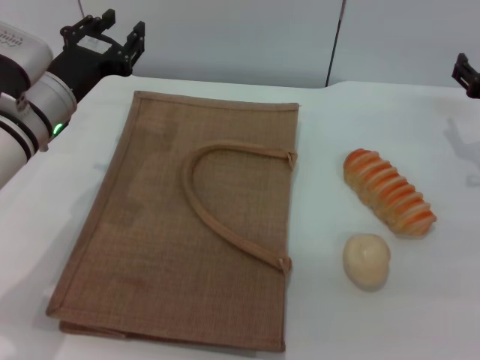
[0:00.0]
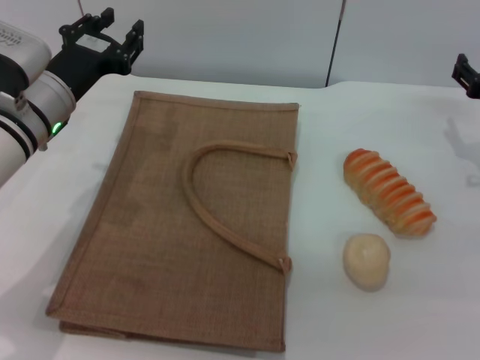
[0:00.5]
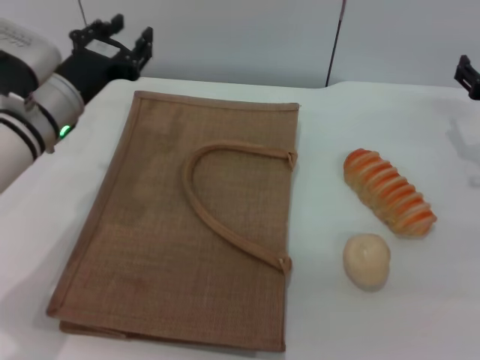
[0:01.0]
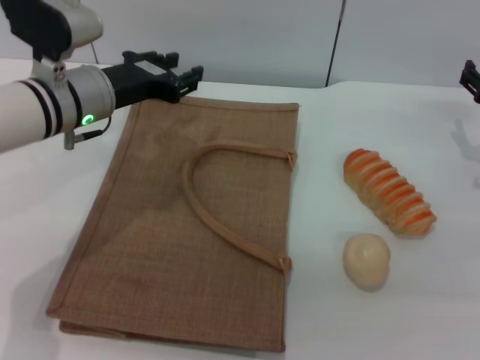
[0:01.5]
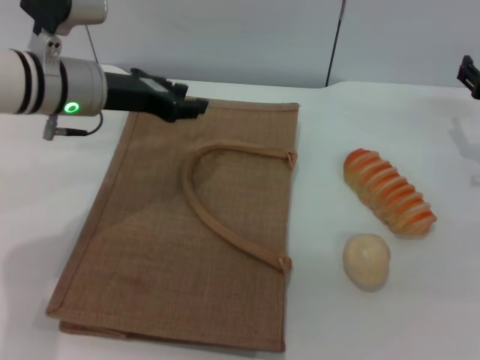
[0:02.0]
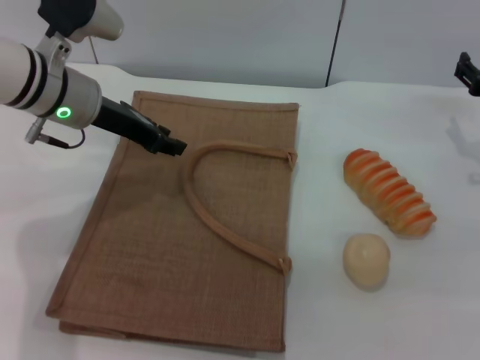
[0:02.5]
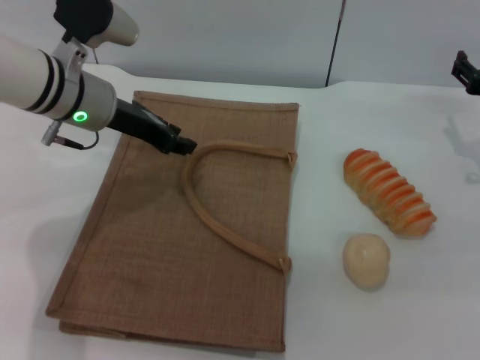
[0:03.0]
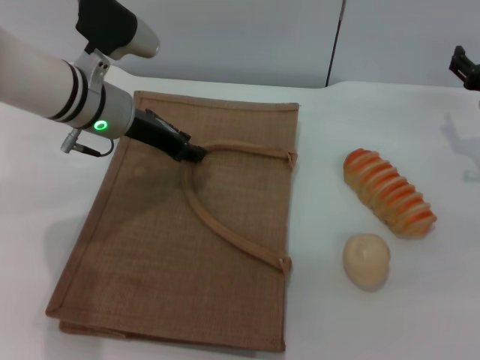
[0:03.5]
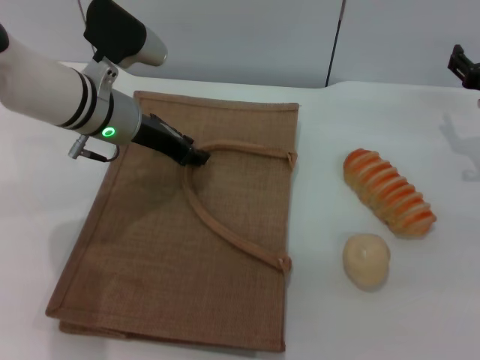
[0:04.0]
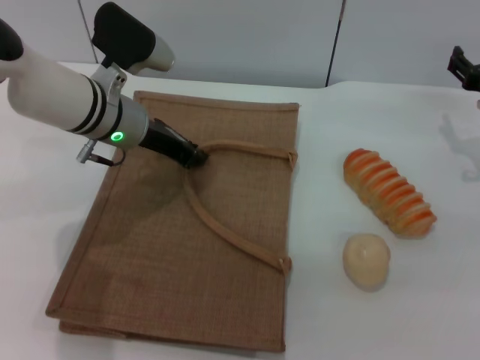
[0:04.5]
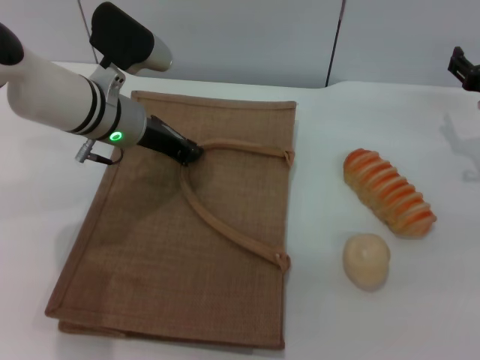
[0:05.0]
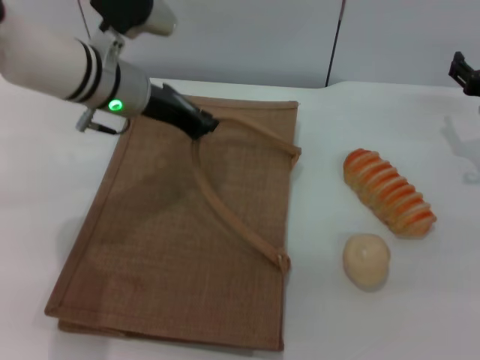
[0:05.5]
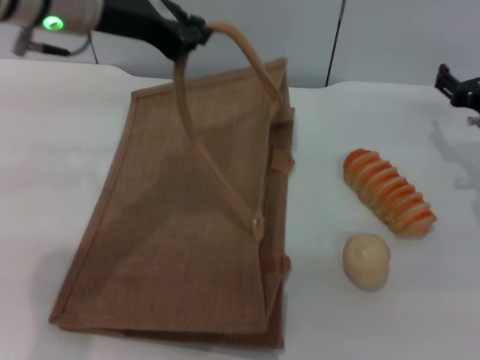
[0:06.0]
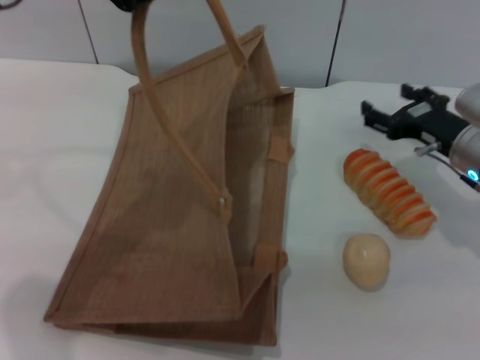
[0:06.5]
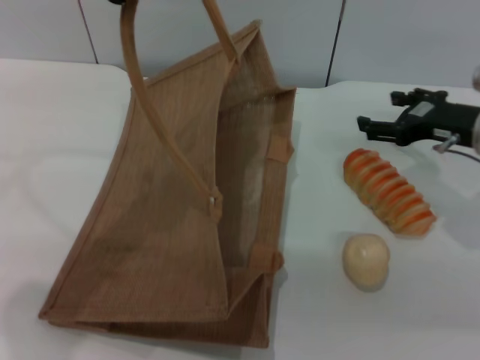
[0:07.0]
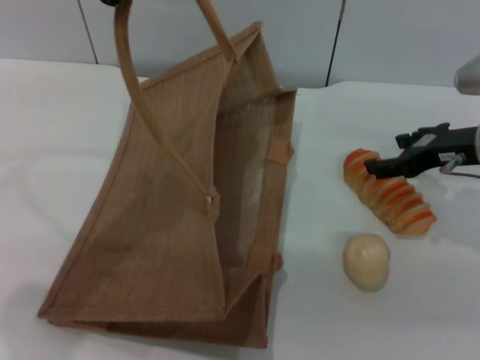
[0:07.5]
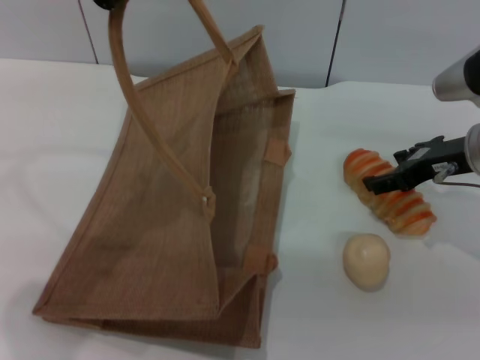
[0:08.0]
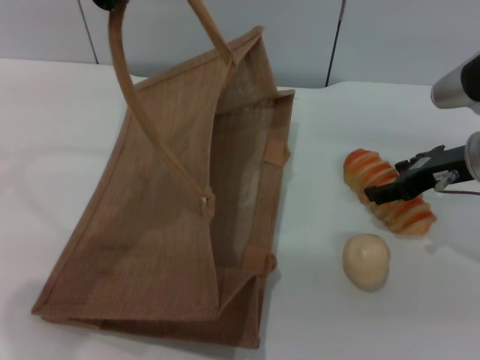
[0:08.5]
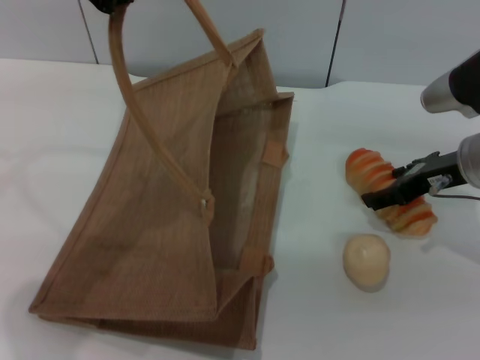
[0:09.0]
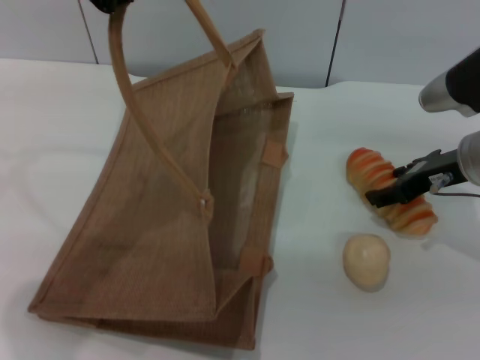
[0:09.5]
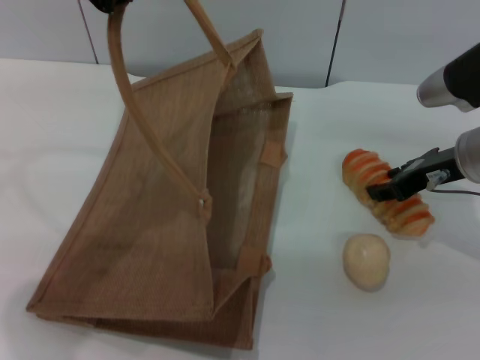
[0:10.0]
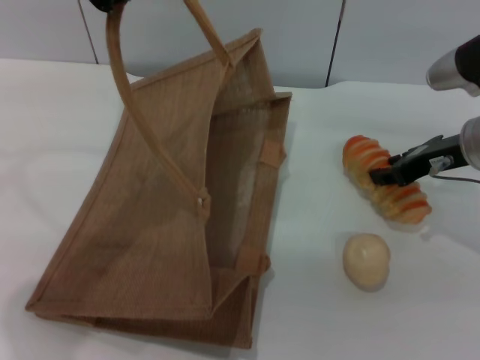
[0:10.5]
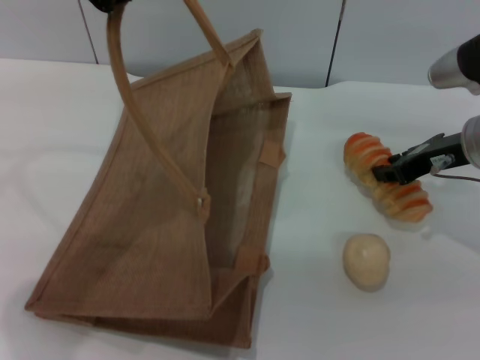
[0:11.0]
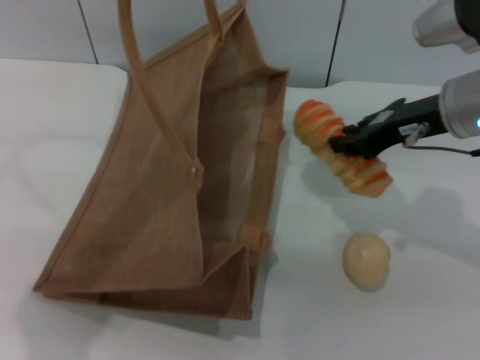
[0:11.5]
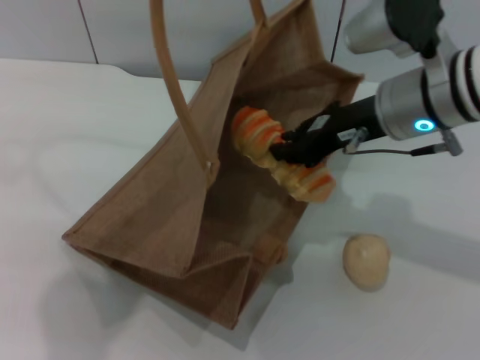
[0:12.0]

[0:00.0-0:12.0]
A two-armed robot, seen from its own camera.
Task of the whole recording: pick up the bread and egg yolk pastry from the table and place it in the brown handbag.
Step, 0:00.0 to 0:06.0: Lift the woven bag with the left gripper to open it.
Step, 0:06.5 to 0:11.0: Pick up the bread with the right gripper.
0:00.0 to 0:02.0: The left gripper moves approximately 5 cm.
0:02.0 to 0:04.0: The grippers move only a little.
0:04.0 to 0:06.0: The left gripper heads upward, covering approximately 15 cm, and closes its fingers.
0:06.0 to 0:08.0: Both grippers move upward, some 5 cm.
0:08.0 to 0:10.0: The grippers make only small movements.
0:10.0 to 0:12.0: The right gripper travels to the left and upward by about 10 cm, and closes its fingers.

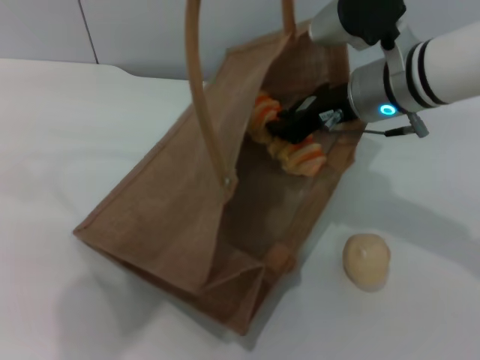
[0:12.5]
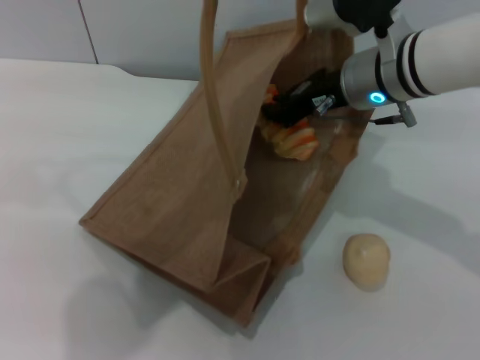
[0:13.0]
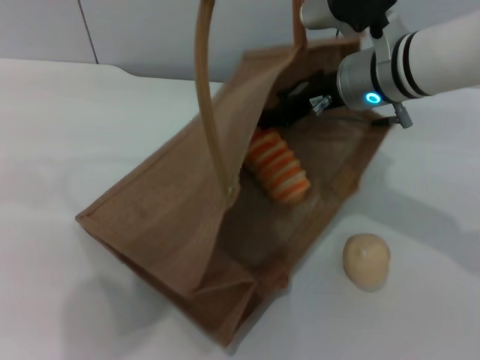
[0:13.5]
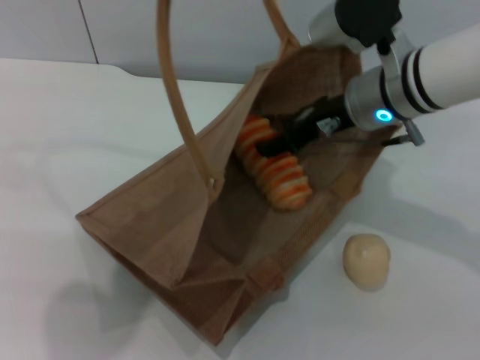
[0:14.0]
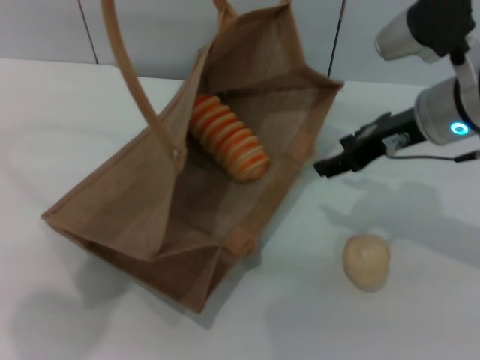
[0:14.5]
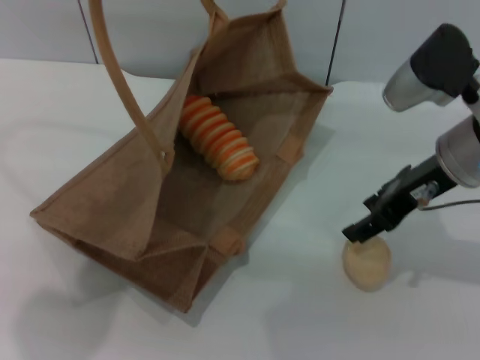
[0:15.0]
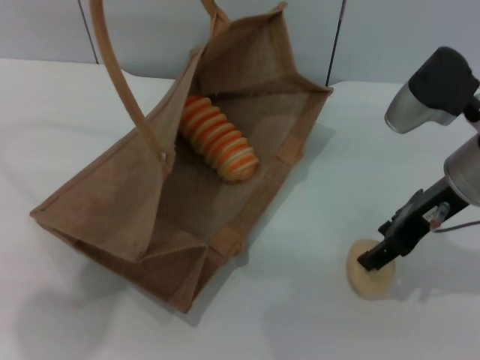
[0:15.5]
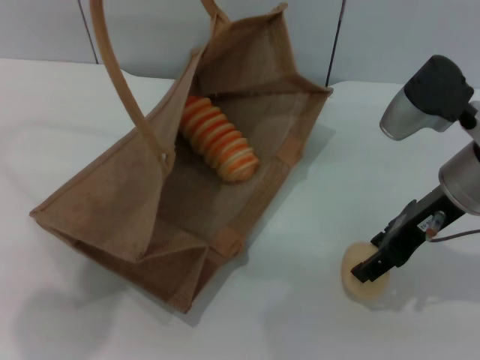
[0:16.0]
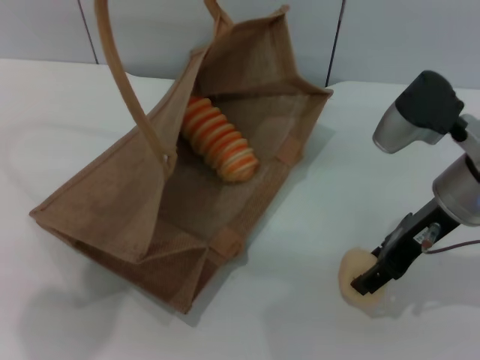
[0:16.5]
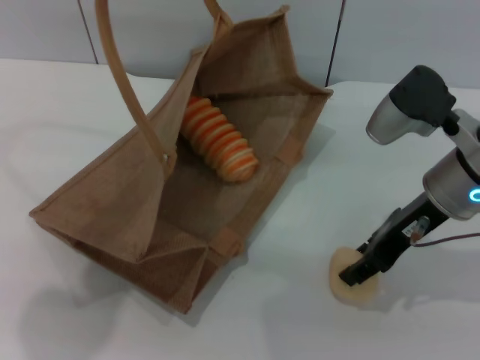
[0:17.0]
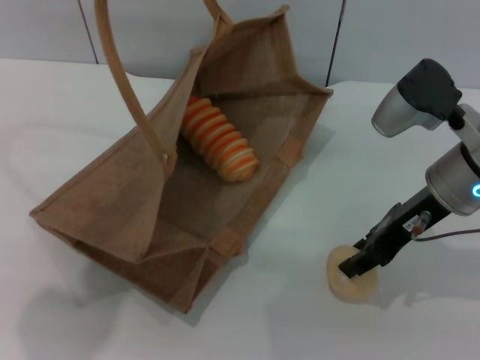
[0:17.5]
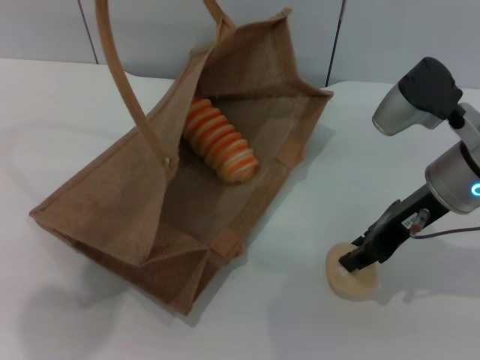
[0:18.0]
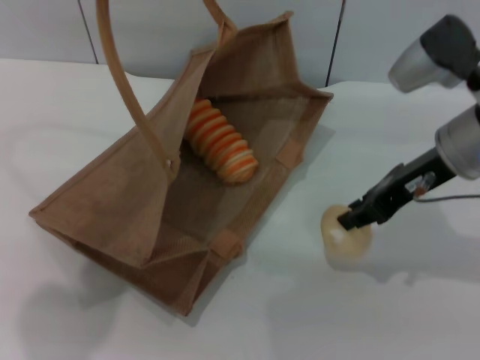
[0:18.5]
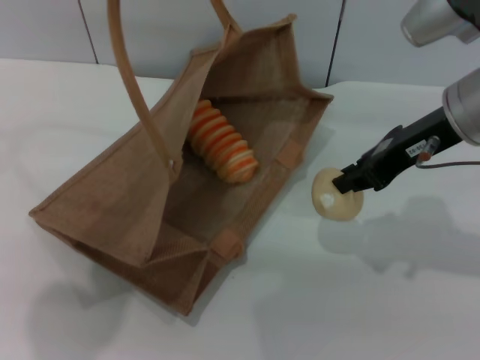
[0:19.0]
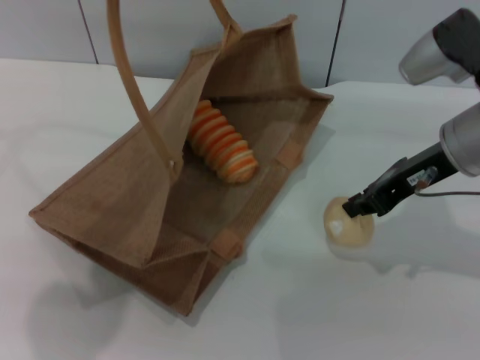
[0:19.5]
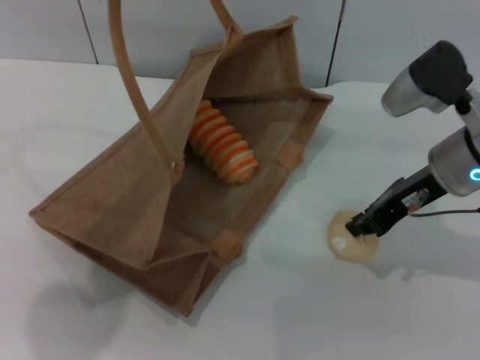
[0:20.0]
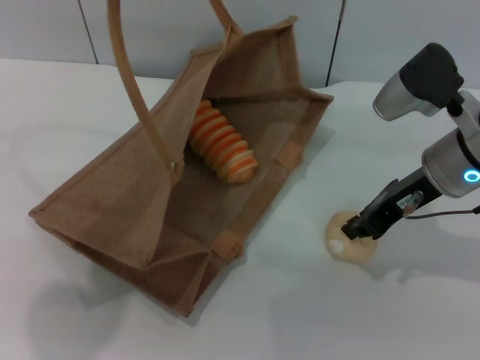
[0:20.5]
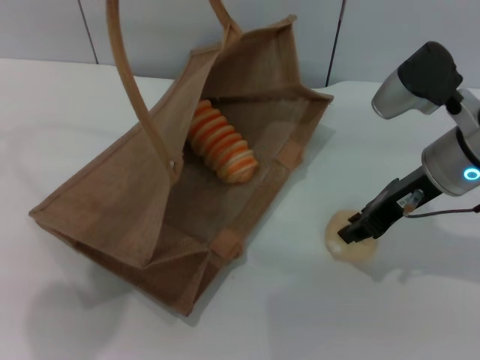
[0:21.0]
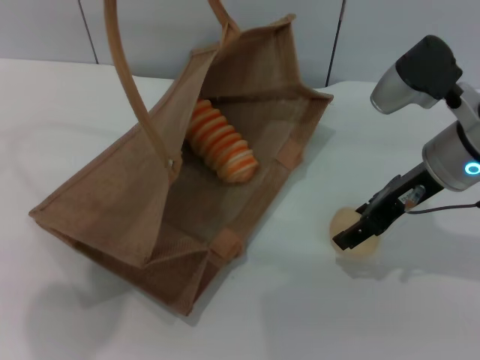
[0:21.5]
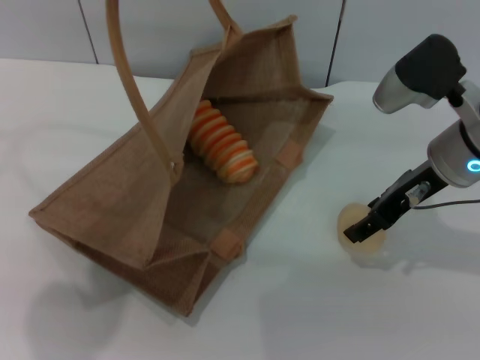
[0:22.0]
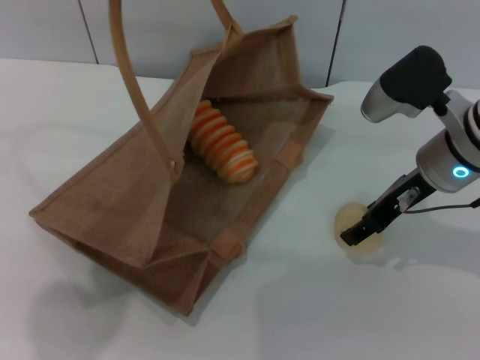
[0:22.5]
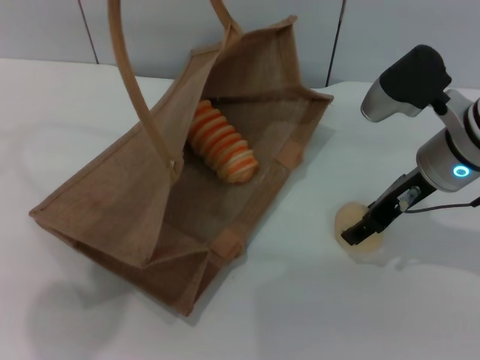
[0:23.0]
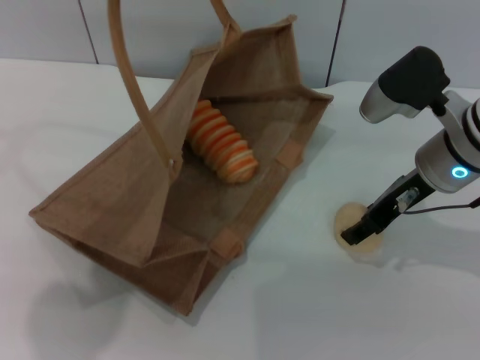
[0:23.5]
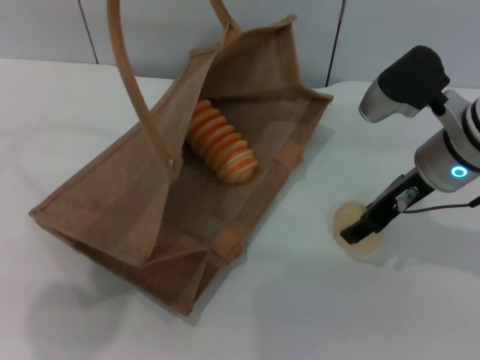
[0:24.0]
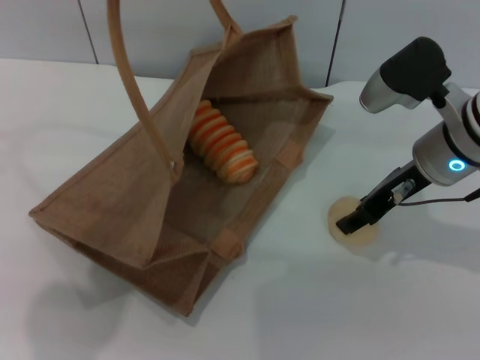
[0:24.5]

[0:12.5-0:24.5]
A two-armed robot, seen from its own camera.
Task of the whole recording: pick up the bread and egg yolk pastry from the table and place it in the brown handbag.
Step, 0:12.5 to 0:14.0: Place the bread into the woven bag with the right gripper.
0:12.5 to 0:14.5: The right gripper goes some 5 cm to the right, and opens, while the left gripper heads to the left, covering about 5 cm.
0:14.5 to 0:16.5: The right gripper moves approximately 5 cm.
0:16.5 to 0:18.5: The right gripper closes its fingers.
0:18.5 to 0:20.5: The grippers move only a little.
0:20.5 to 0:22.5: The right gripper opens its fingers.
0:22.5 to 0:24.5: Both grippers stay put.

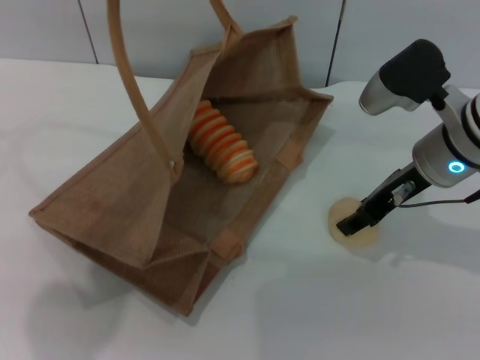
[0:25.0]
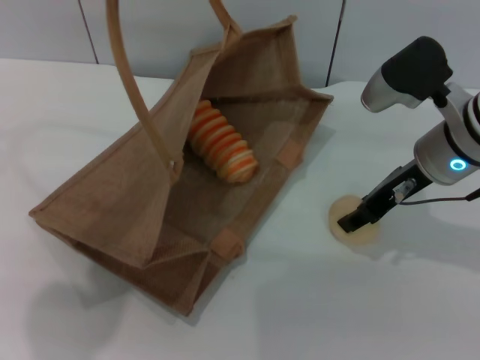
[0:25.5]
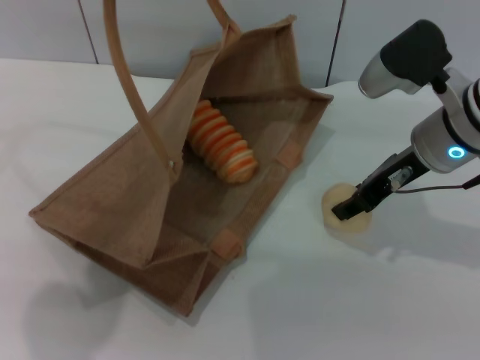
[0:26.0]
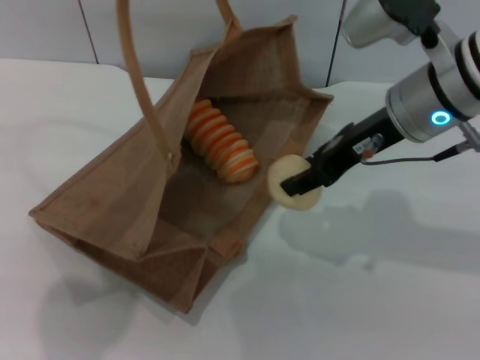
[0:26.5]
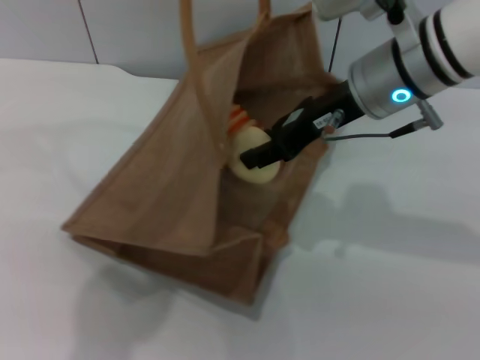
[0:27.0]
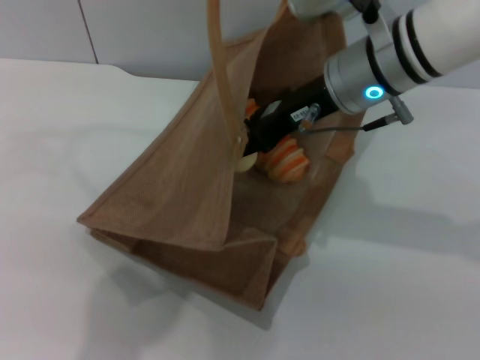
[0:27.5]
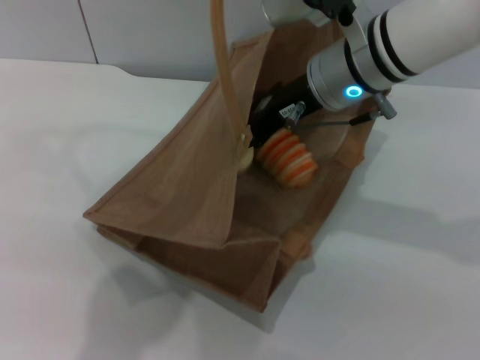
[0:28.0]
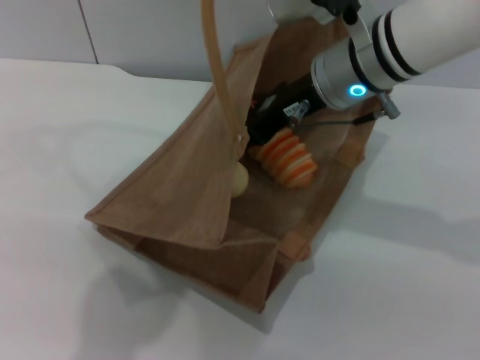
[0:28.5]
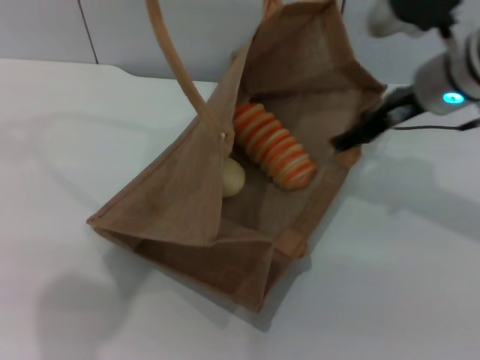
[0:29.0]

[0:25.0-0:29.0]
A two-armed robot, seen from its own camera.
Task of the whole recording: pick up the bread and egg yolk pastry from the table and place it in the brown handbag.
Step, 0:26.5 to 0:28.5: Place the egg yolk pastry into the woven bag with the right gripper.
0:25.0 to 0:27.0: The left gripper moves to the right, about 5 cm, while the right gripper travels upward and to the left by approximately 10 cm.
0:27.0 to 0:29.0: The right gripper shifts about 5 cm to the right, and opens.
